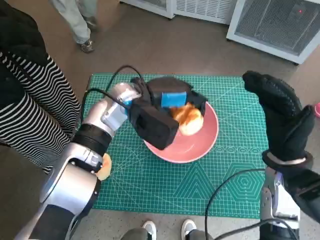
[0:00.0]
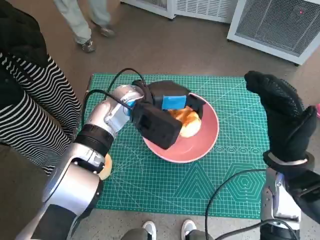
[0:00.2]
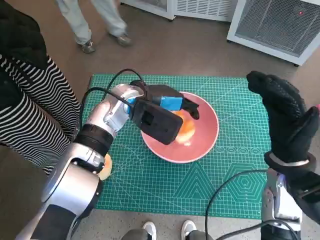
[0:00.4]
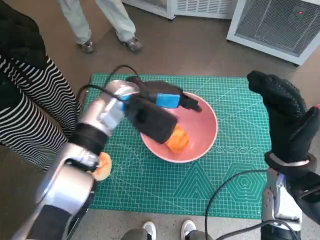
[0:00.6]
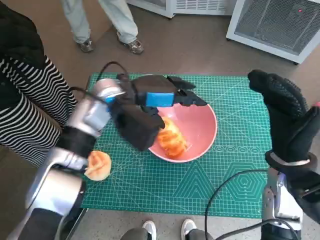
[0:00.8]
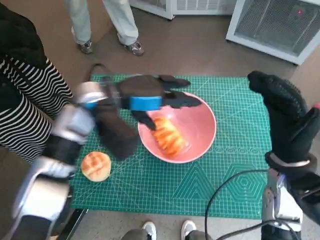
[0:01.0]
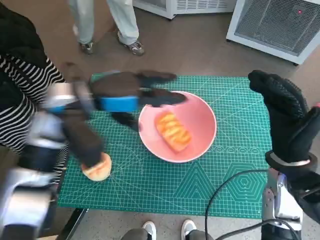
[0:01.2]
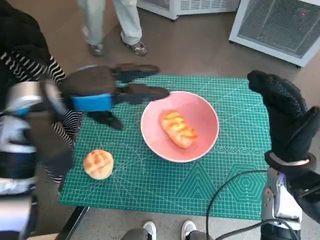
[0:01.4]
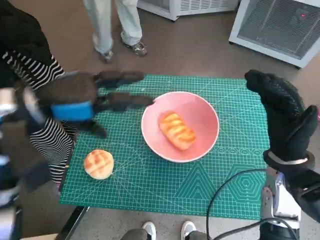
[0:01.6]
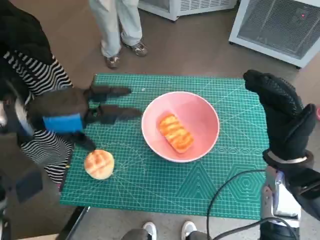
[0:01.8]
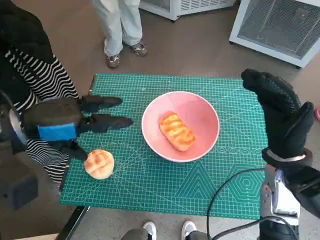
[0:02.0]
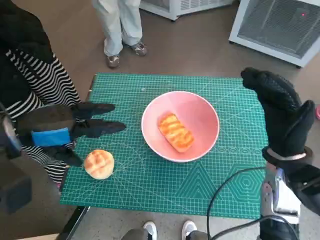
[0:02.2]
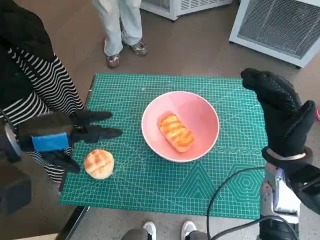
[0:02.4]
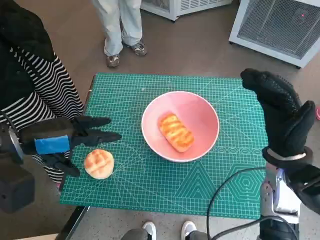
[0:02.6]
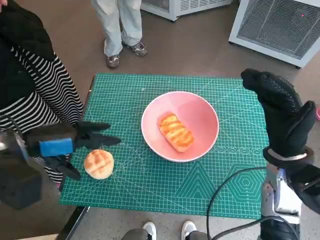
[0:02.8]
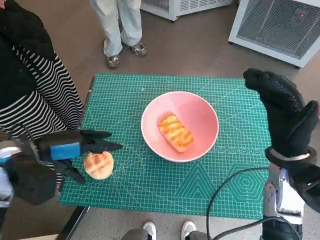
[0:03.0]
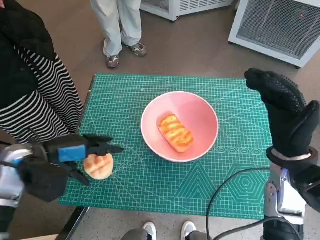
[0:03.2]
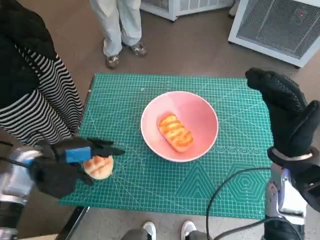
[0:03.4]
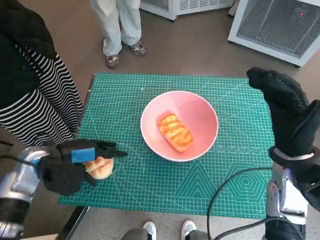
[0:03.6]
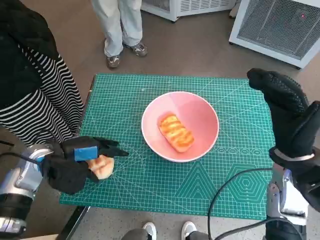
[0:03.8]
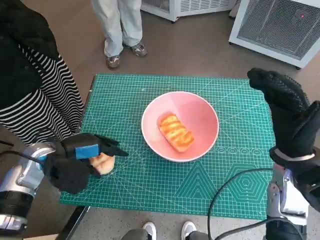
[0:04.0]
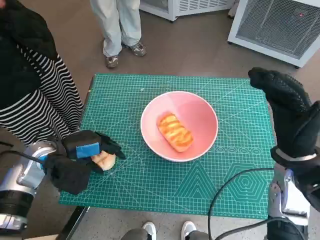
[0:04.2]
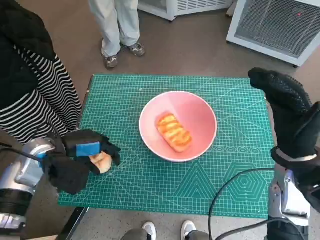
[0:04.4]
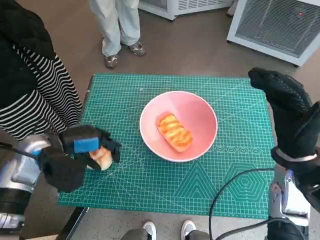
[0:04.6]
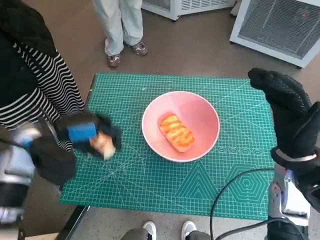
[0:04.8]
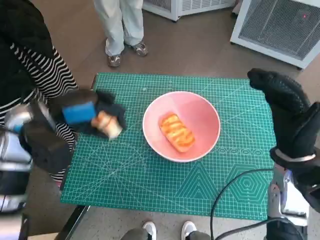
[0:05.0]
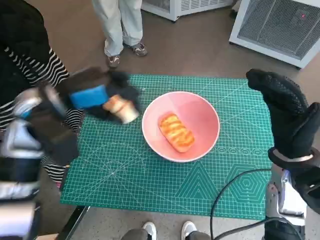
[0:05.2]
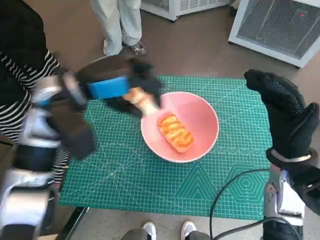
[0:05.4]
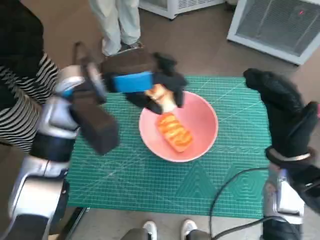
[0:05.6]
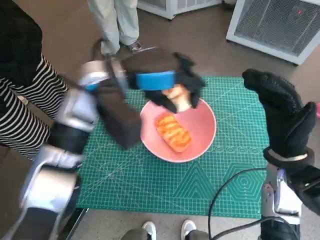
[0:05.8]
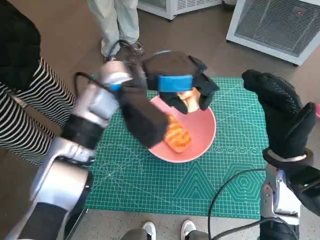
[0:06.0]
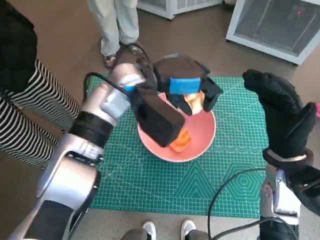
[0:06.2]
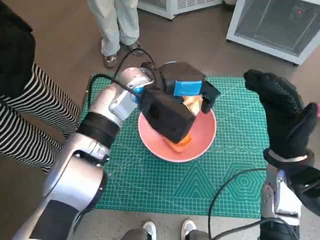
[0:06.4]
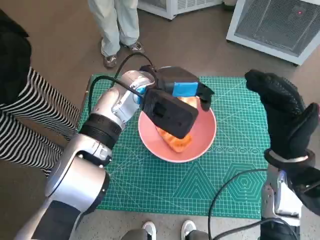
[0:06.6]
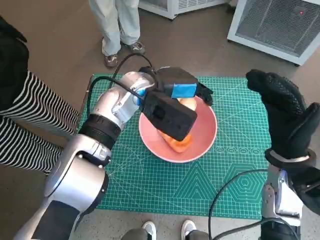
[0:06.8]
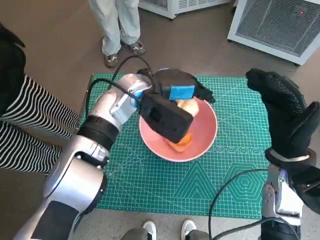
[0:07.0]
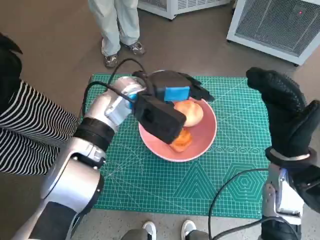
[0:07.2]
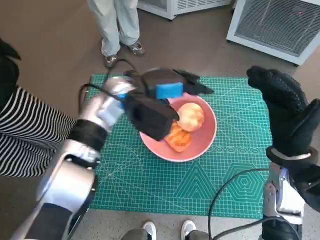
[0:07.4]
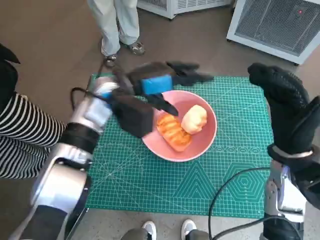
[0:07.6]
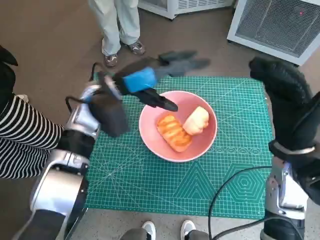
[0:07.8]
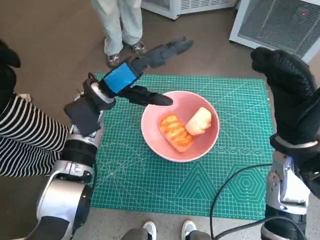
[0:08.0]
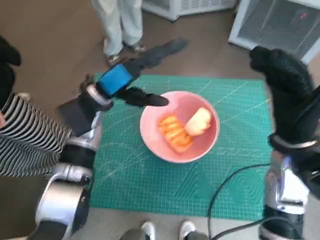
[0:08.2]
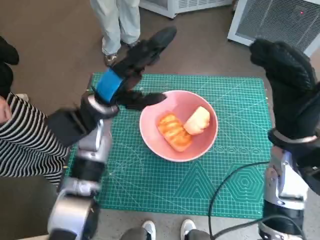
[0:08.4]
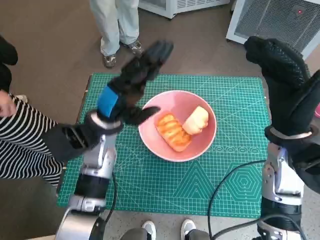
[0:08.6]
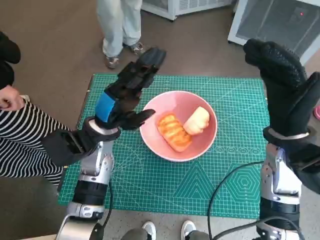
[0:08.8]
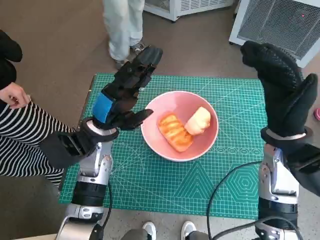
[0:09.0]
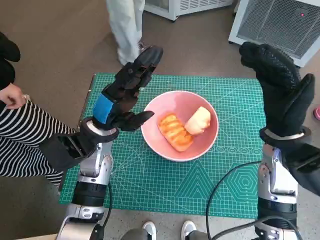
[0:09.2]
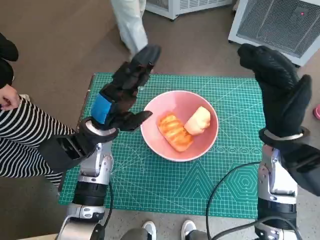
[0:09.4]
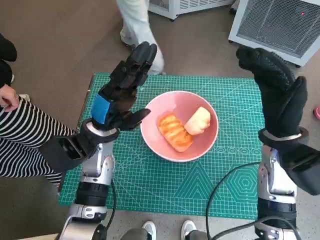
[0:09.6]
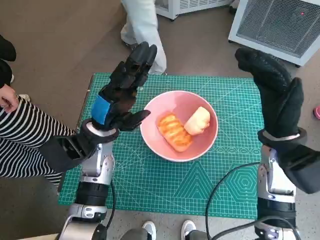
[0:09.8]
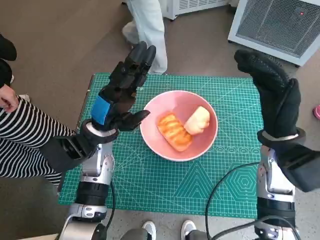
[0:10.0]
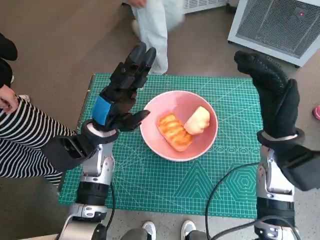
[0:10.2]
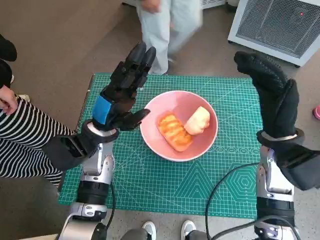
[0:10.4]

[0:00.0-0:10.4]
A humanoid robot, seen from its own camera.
Task of the whole recording: Push the bowl into the center of the table and put the bread into the bowl.
Step, 0:01.2 to 0:04.4: Grasp the round bread with left hand.
Step, 0:04.6 to 0:07.6: Place the round bread in pink bowl with left hand.
0:00.0 to 0:01.4: The left hand shifts roughly 15 cm to the left, upward and backward.
0:01.4 to 0:03.0: The left hand shifts roughly 10 cm to the left, downward and backward.
0:03.0 to 0:04.4: The left hand heads downward, covering some 5 cm.
0:04.4 to 0:06.0: The left hand is displaced to the right, upward and forward by approximately 25 cm.
0:06.0 to 0:07.4: The left hand moves some 5 cm.
0:07.4 to 0:09.0: The left hand shifts some 10 cm backward, downward and to the left.

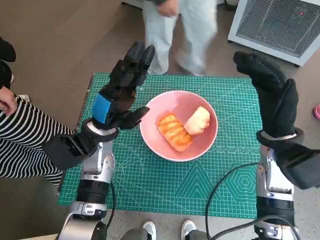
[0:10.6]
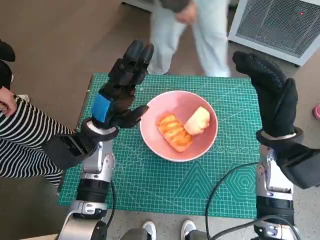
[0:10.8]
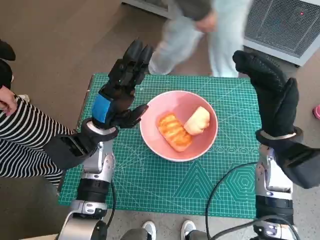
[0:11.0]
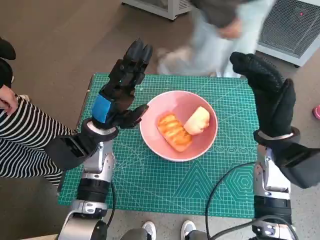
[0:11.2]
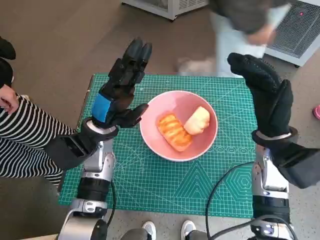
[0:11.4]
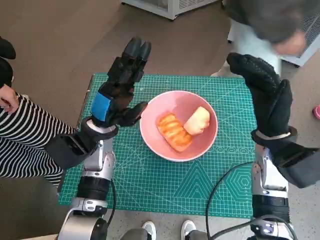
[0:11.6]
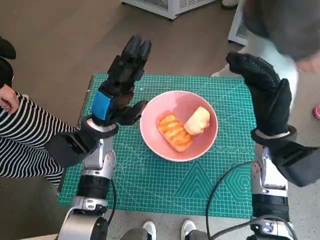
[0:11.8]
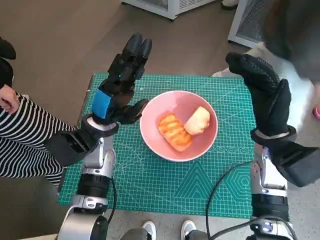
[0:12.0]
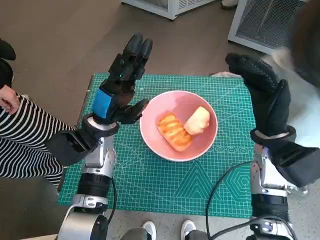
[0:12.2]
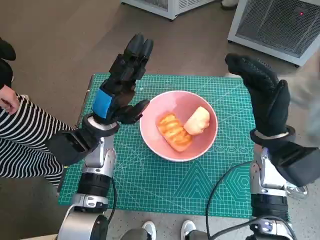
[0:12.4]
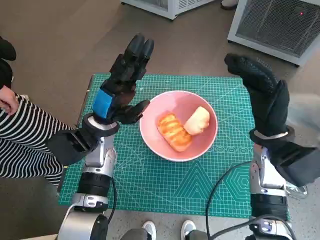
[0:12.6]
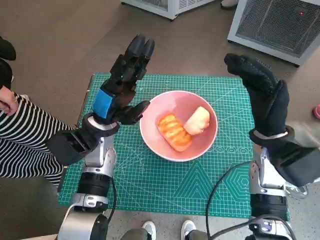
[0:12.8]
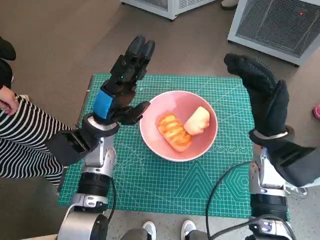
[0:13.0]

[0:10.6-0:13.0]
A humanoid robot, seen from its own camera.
Task of the whole recording: Push the bowl into the center of the table and put the bread into the bowl.
0:11.8 to 0:13.0: Both hands stay put.

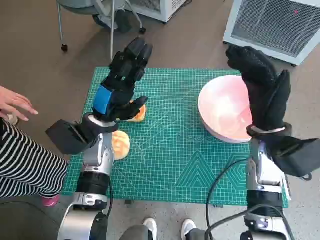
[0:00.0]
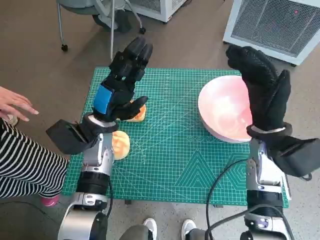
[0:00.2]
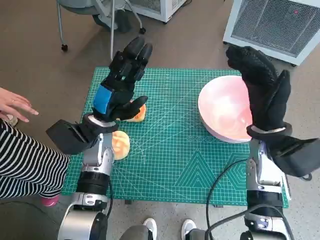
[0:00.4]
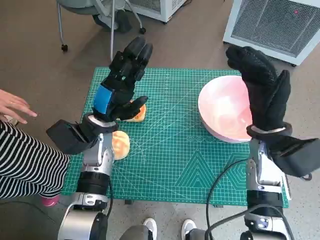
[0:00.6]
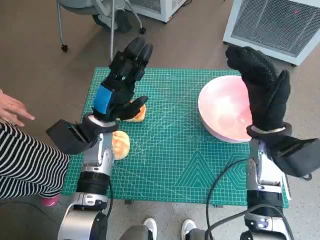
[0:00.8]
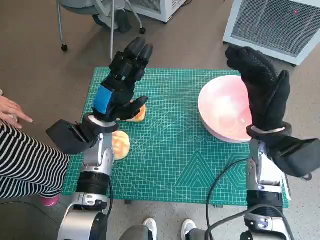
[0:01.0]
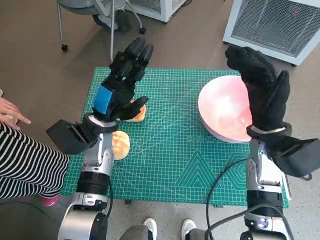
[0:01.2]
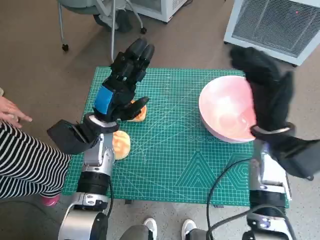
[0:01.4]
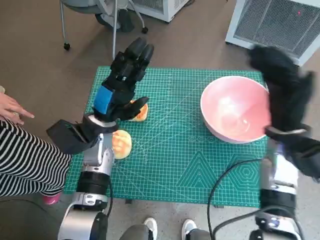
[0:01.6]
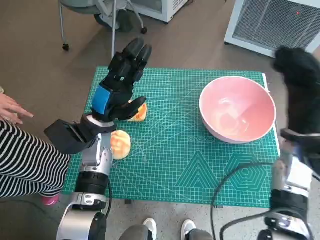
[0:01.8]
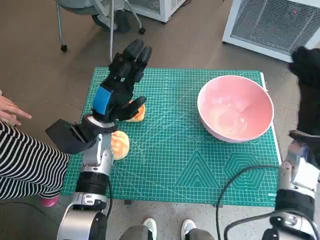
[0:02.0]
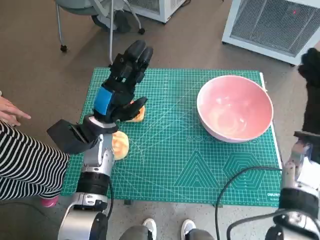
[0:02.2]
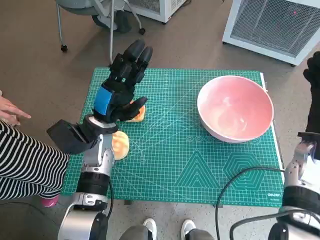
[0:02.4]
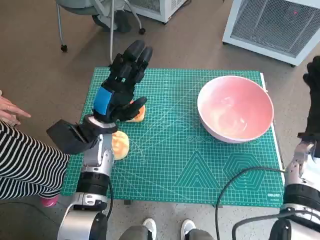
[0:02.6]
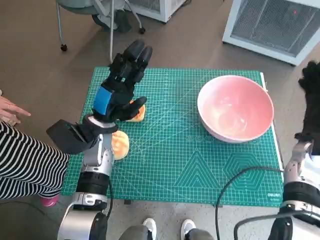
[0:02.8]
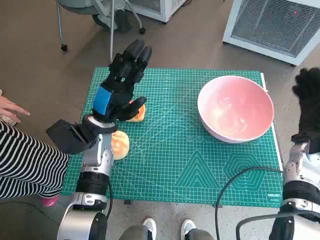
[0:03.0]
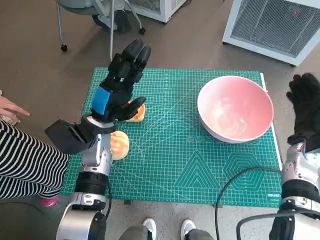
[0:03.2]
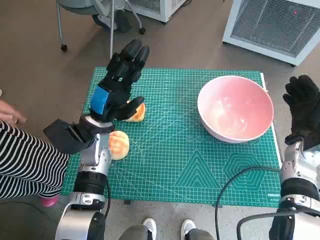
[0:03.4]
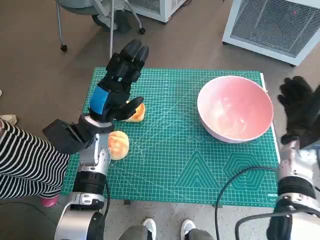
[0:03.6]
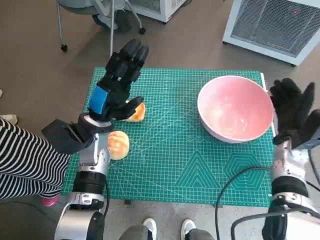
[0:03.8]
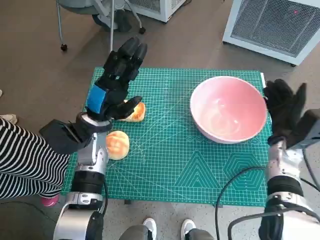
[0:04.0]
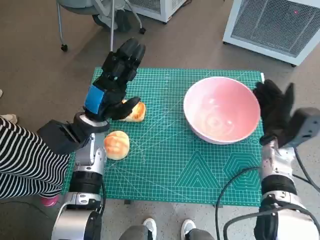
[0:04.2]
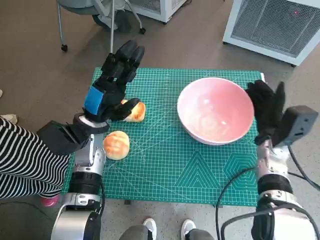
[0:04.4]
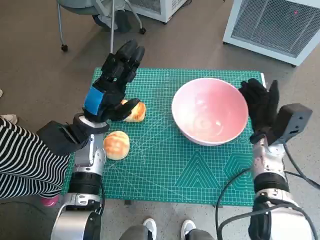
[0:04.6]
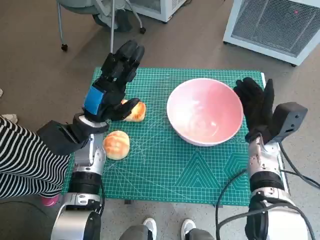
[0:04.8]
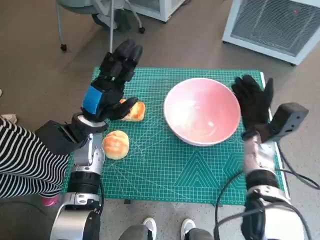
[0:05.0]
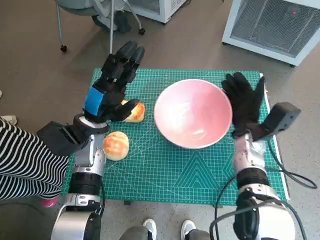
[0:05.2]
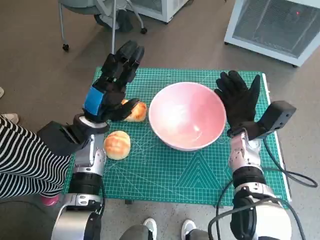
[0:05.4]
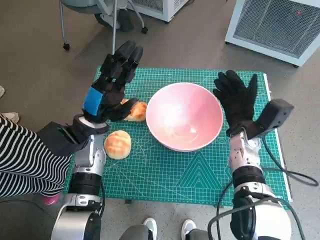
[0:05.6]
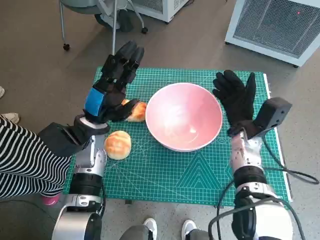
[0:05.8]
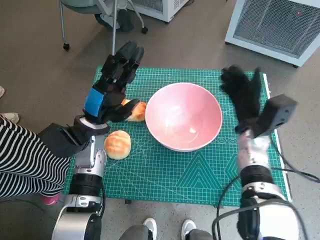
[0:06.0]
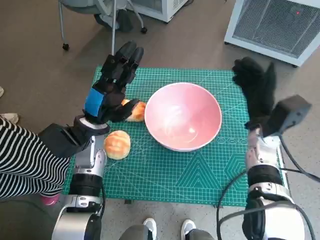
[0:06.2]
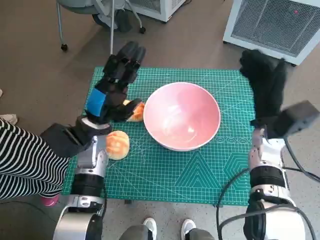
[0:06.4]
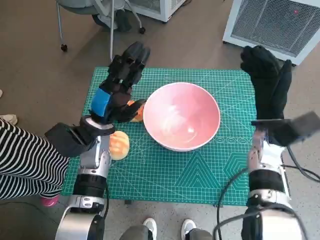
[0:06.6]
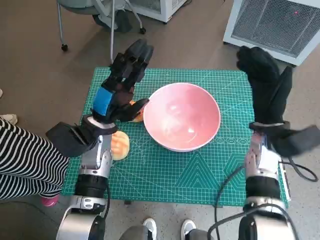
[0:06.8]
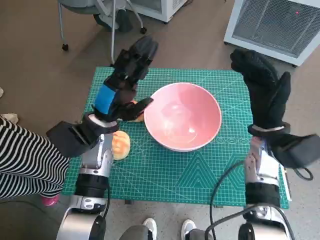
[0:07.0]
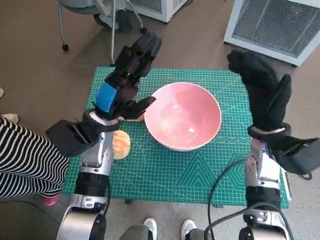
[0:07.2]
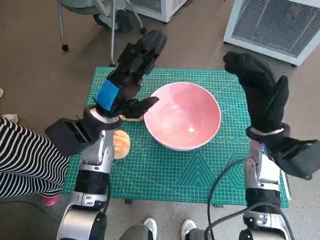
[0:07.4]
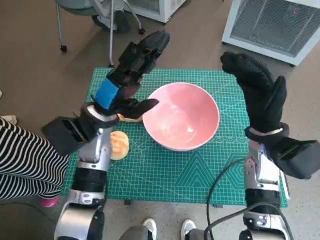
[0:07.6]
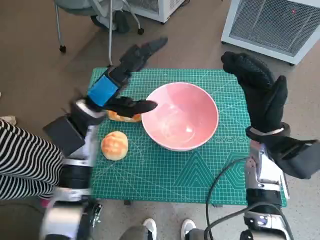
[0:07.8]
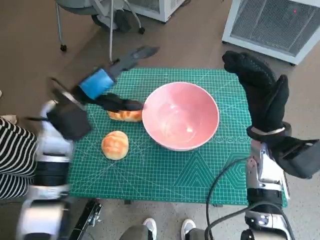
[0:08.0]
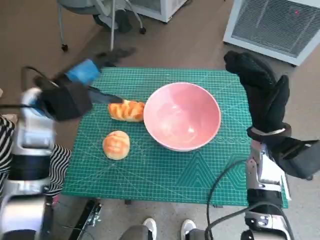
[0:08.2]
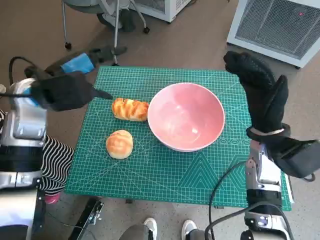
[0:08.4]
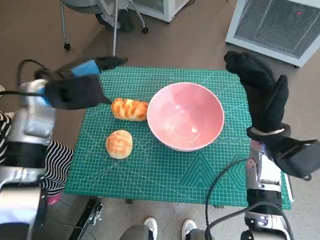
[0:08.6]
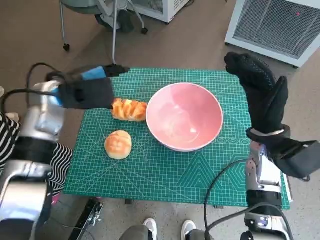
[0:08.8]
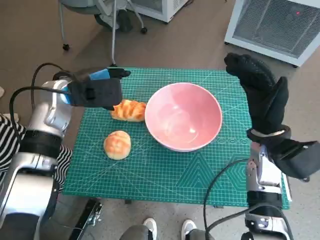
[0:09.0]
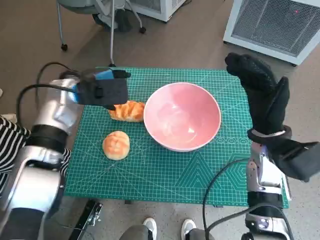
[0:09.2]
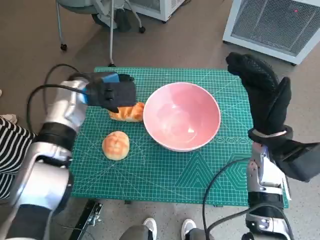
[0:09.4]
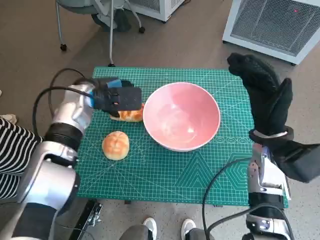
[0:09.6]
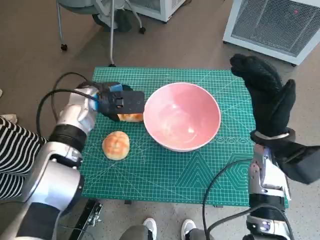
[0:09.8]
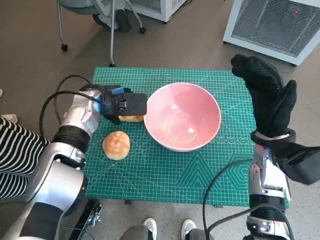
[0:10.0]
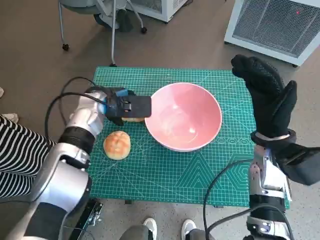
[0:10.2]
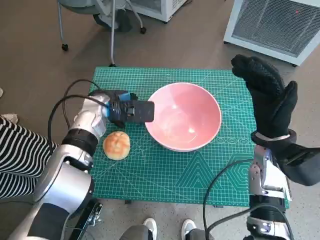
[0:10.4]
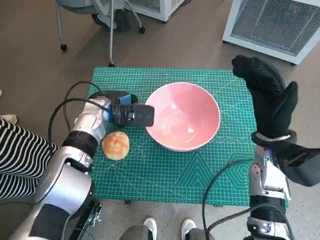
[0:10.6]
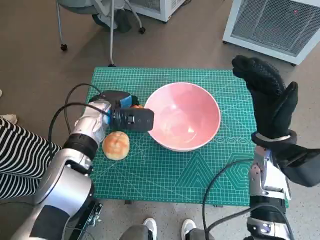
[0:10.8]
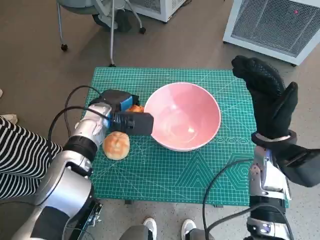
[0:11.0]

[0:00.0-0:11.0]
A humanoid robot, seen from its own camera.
Task of the whole recording: Push the bowl into the center of the table and put the bread into the bowl.
Step, 0:00.0 to 0:05.8: Move the pink bowl to the center of table with right hand.
Step, 0:06.0 to 0:10.8: Grasp the long bread with left hand.
0:01.6 to 0:03.2: The right hand is displaced to the right and downward by roughly 10 cm.
0:03.2 to 0:04.8: The right hand is displaced to the left by approximately 5 cm.
0:06.2 to 0:07.8: The left hand shifts roughly 5 cm upward. Meanwhile the right hand moves about 5 cm.
0:07.8 to 0:09.4: The left hand is displaced forward by some 5 cm.
0:09.4 to 0:11.0: The left hand goes approximately 5 cm downward.
